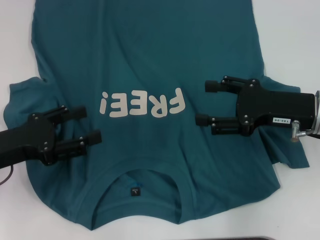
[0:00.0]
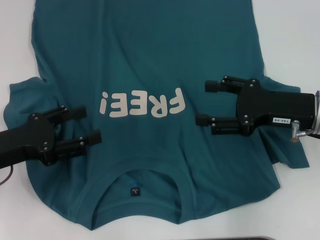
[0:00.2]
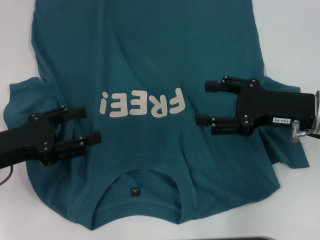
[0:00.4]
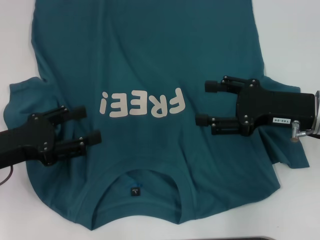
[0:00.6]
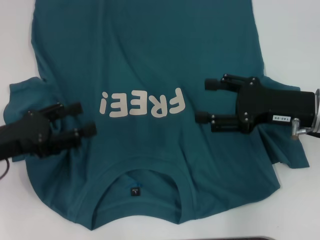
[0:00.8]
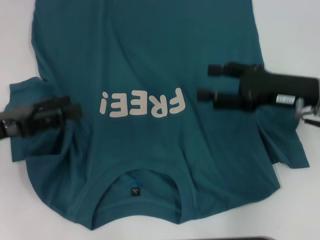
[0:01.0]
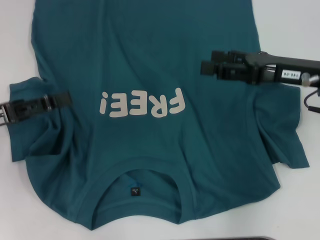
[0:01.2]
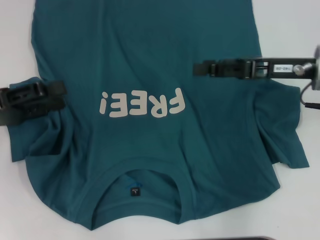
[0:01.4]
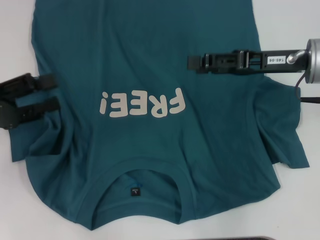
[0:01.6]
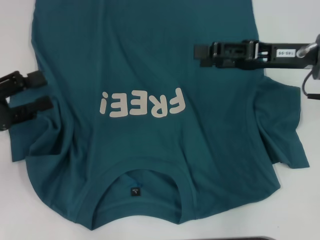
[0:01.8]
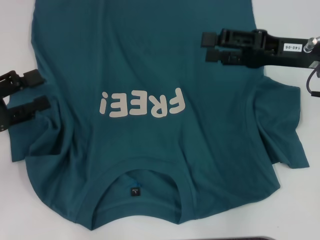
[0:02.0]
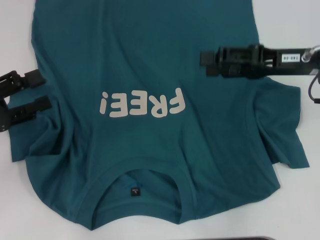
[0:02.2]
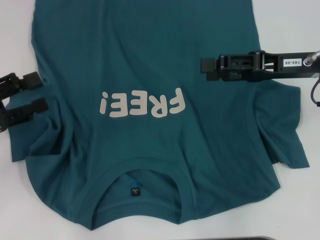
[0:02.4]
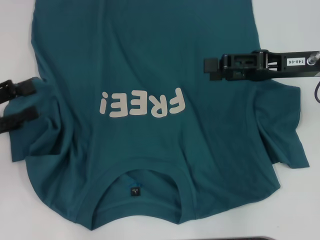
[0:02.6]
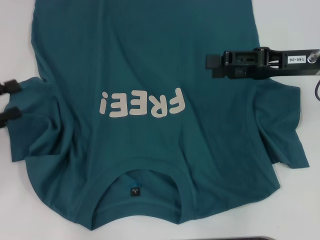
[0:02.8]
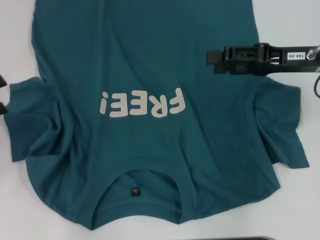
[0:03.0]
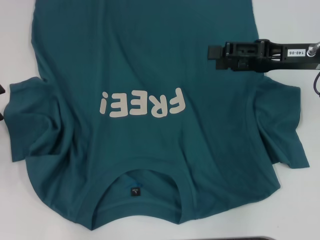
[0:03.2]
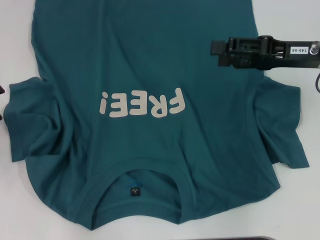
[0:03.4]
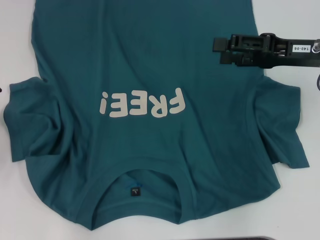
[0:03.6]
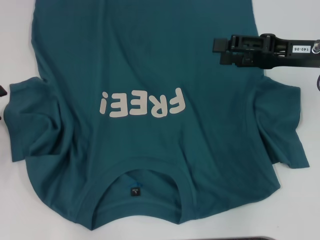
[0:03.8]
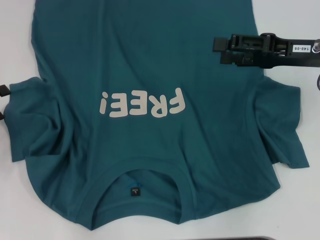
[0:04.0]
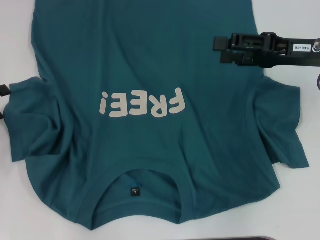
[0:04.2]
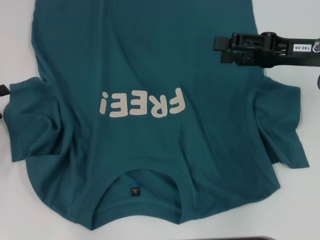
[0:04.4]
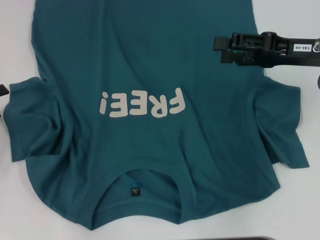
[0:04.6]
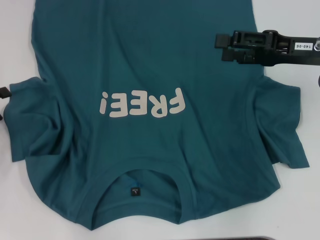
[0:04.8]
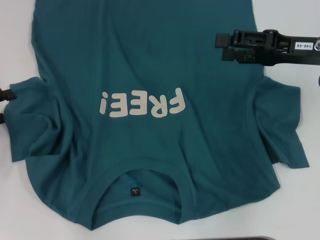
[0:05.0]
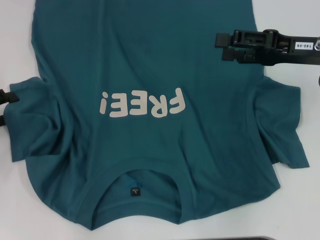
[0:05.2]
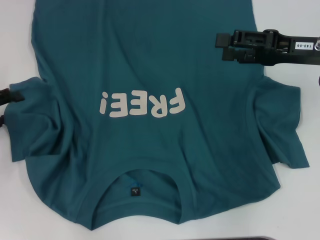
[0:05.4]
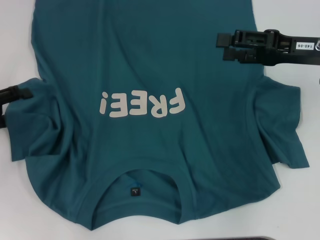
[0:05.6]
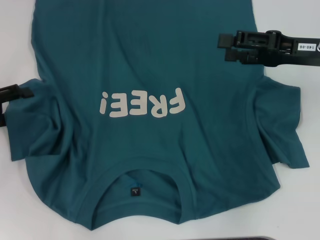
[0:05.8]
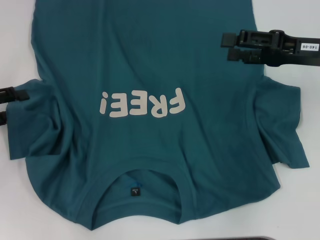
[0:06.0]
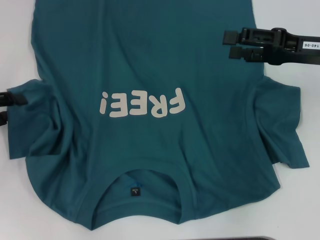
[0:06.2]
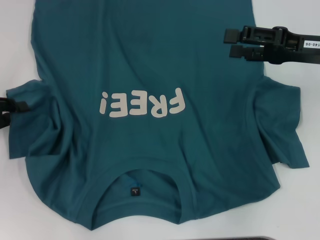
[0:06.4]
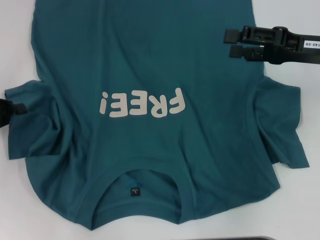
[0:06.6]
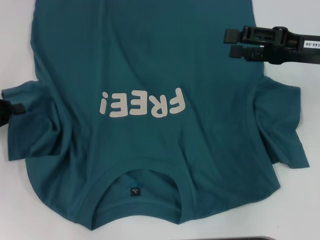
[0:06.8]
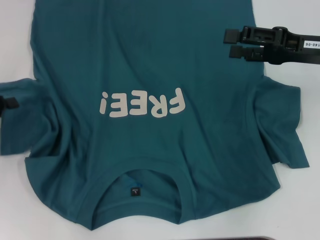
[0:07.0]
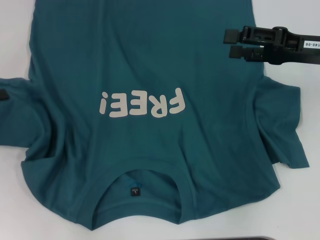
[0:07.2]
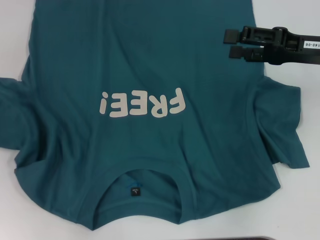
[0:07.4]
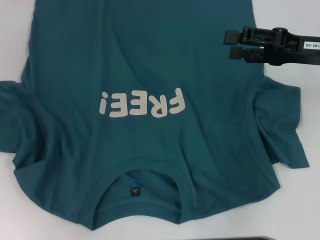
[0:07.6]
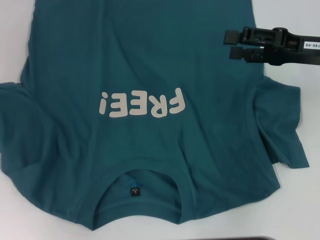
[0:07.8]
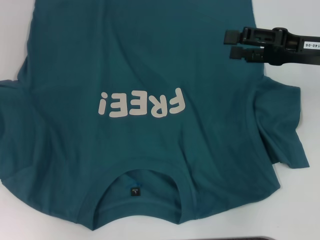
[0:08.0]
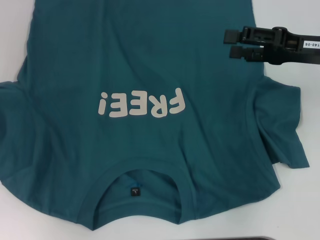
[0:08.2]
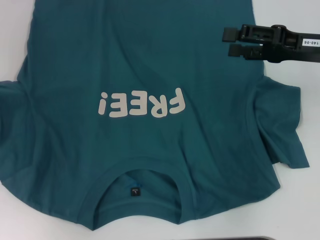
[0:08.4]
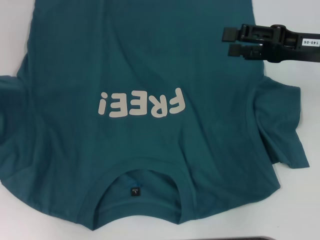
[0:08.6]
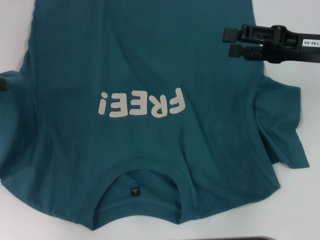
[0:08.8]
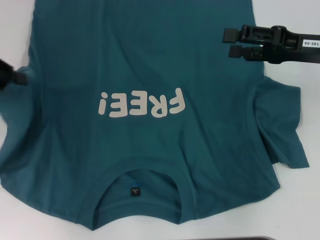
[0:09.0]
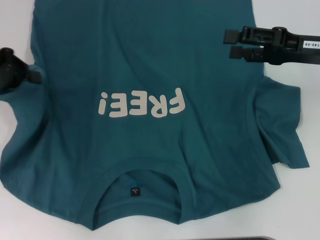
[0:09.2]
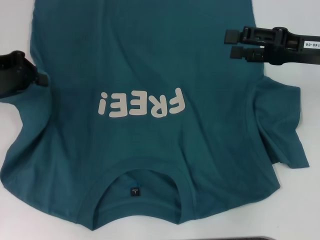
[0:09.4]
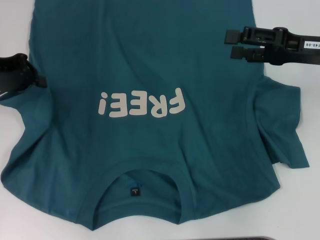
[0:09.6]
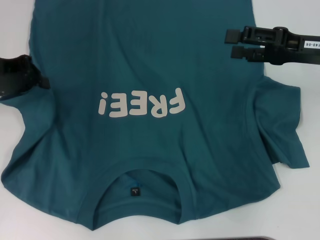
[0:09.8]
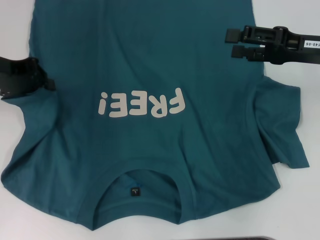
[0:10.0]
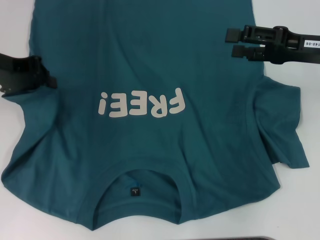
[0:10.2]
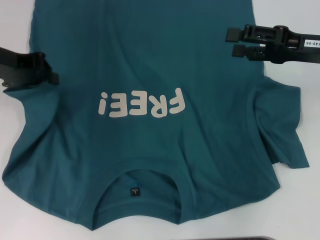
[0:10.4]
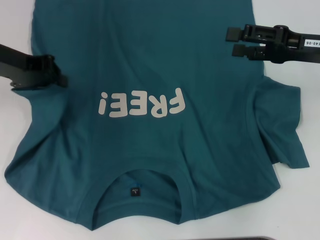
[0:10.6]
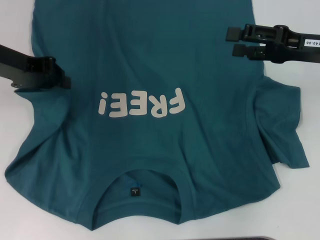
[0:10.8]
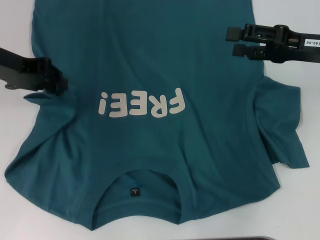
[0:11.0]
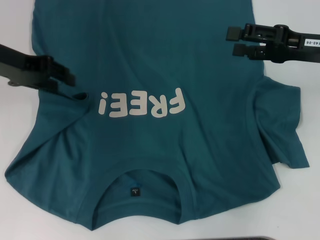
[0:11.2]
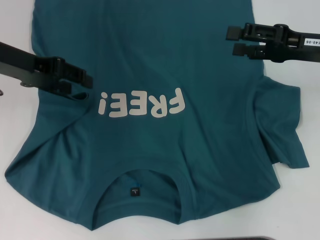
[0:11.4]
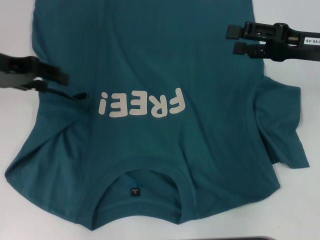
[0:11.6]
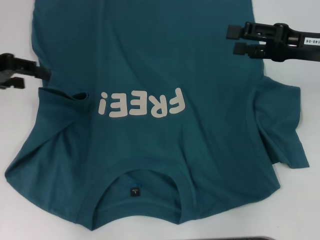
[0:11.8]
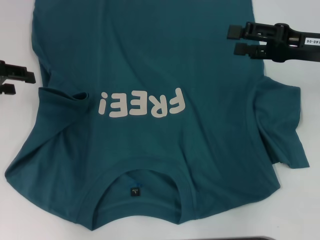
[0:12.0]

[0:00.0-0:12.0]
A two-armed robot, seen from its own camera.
0:00.0 to 0:01.6: The left gripper moves approximately 5 cm. Meanwhile the right gripper shifts about 5 cm forward.
0:01.6 to 0:03.0: The left gripper shifts about 5 cm to the left.
0:03.0 to 0:06.0: The grippers move only a little.
0:06.0 to 0:07.6: The left gripper heads upward, covering roughly 5 cm, and closes.
0:07.6 to 0:09.0: The left gripper goes about 5 cm to the right.
0:09.0 to 0:10.4: The left gripper heads to the right, covering some 5 cm.
0:10.4 to 0:12.0: The left gripper goes roughly 5 cm to the left, and opens.

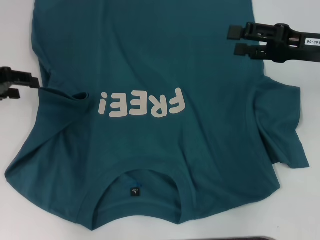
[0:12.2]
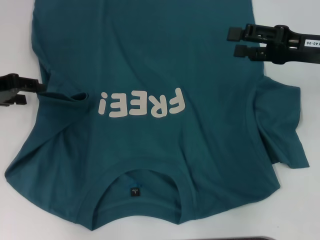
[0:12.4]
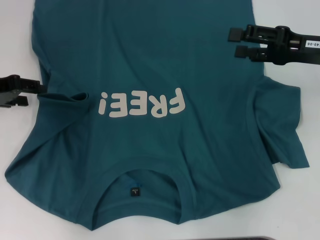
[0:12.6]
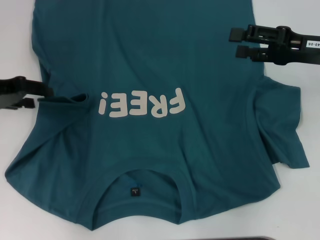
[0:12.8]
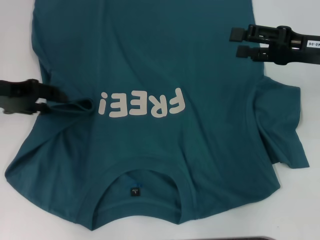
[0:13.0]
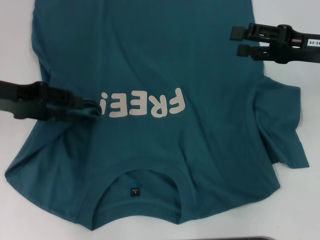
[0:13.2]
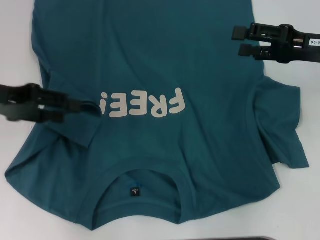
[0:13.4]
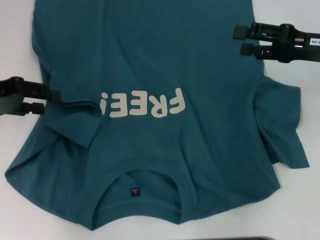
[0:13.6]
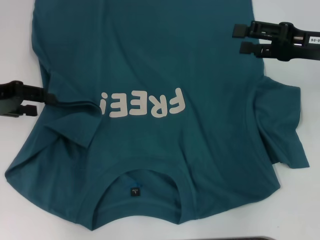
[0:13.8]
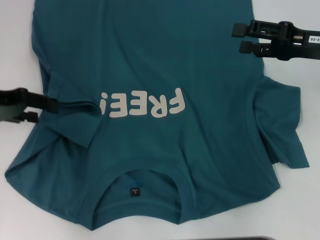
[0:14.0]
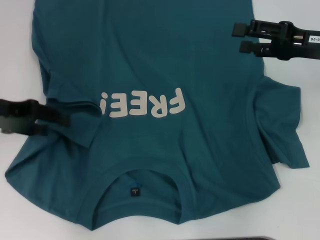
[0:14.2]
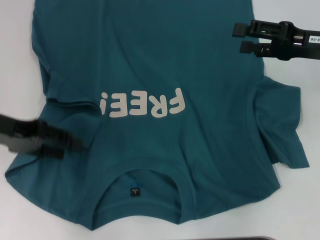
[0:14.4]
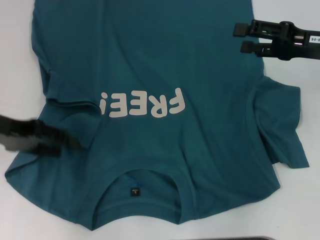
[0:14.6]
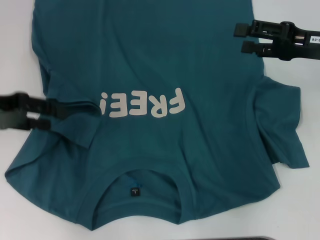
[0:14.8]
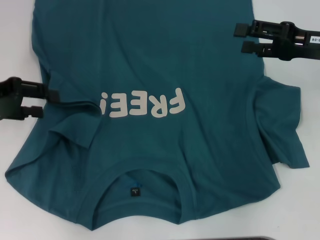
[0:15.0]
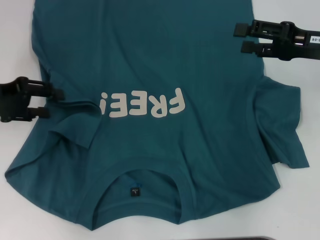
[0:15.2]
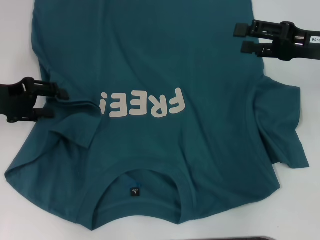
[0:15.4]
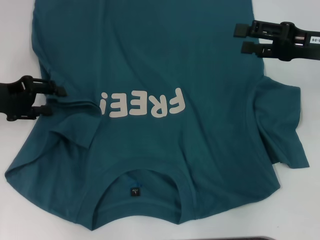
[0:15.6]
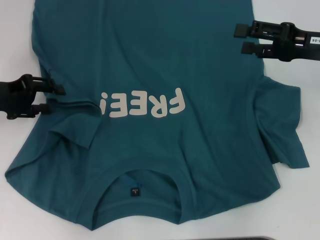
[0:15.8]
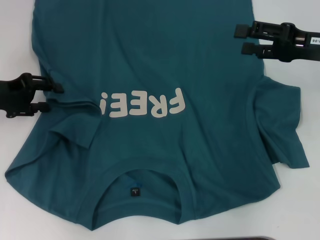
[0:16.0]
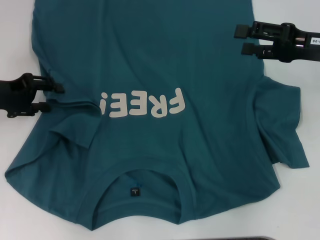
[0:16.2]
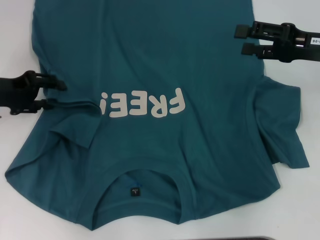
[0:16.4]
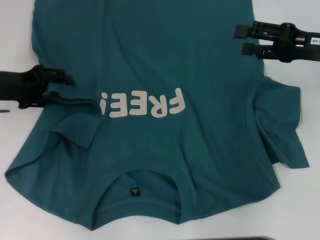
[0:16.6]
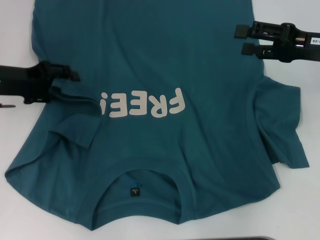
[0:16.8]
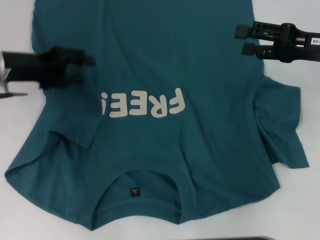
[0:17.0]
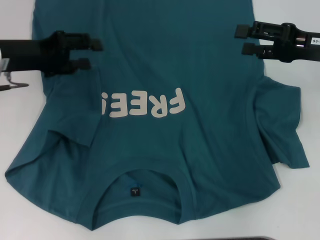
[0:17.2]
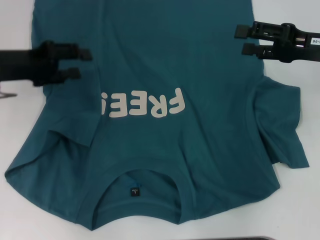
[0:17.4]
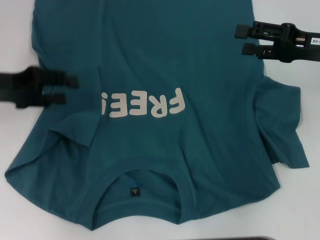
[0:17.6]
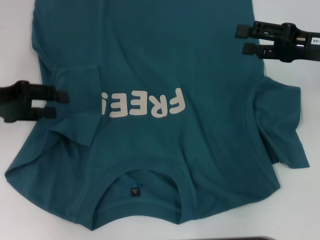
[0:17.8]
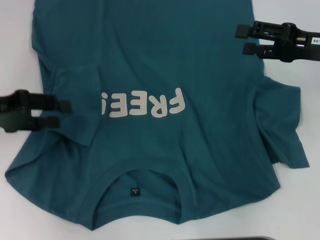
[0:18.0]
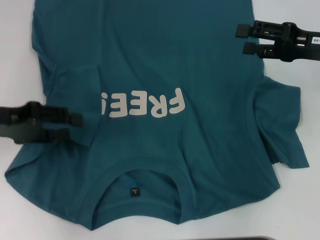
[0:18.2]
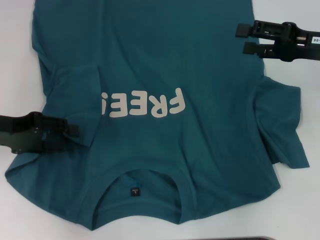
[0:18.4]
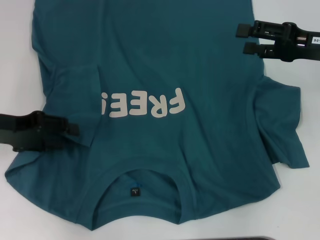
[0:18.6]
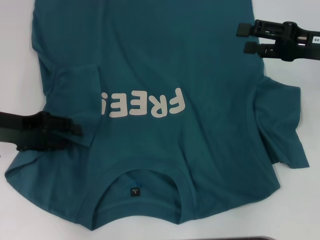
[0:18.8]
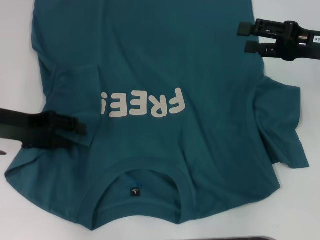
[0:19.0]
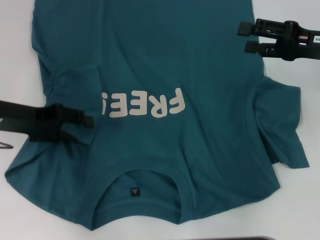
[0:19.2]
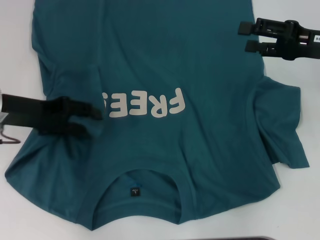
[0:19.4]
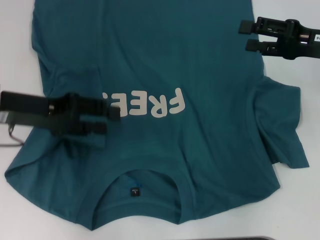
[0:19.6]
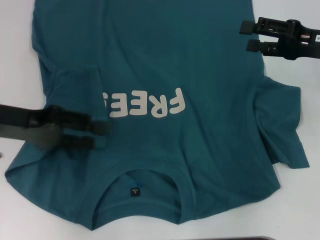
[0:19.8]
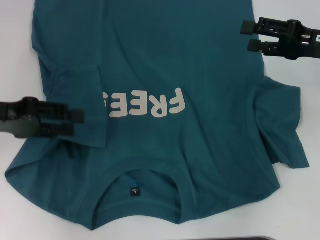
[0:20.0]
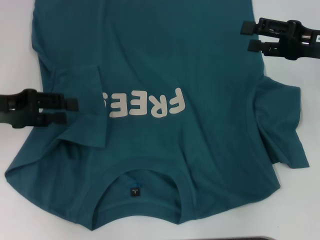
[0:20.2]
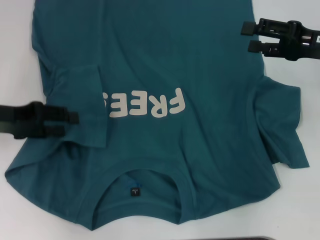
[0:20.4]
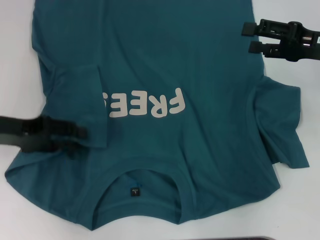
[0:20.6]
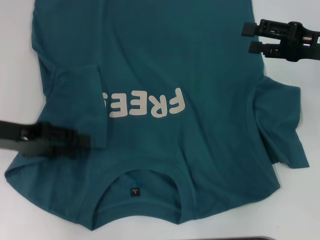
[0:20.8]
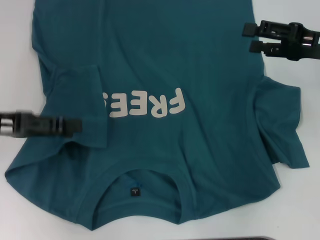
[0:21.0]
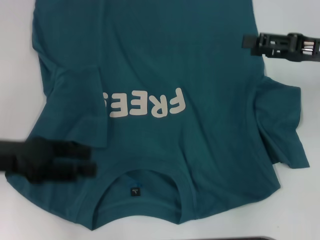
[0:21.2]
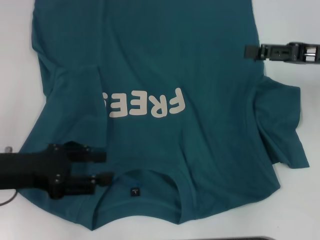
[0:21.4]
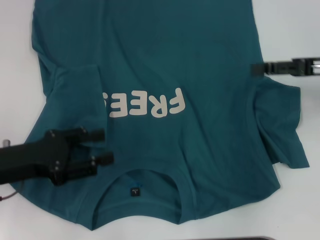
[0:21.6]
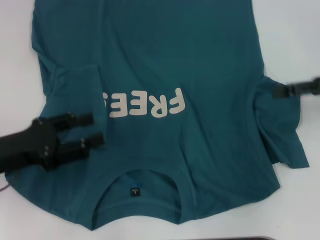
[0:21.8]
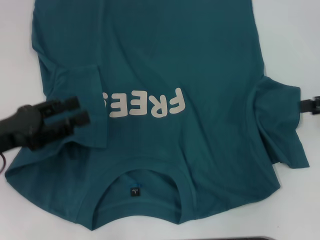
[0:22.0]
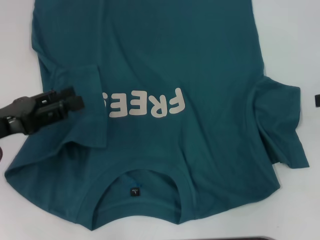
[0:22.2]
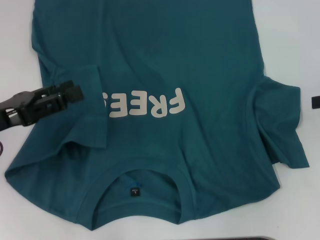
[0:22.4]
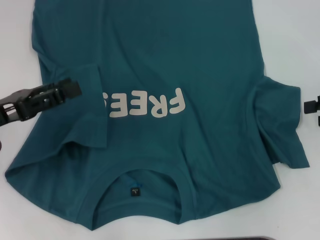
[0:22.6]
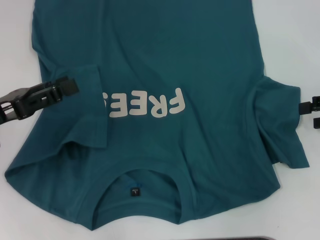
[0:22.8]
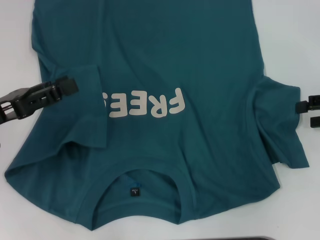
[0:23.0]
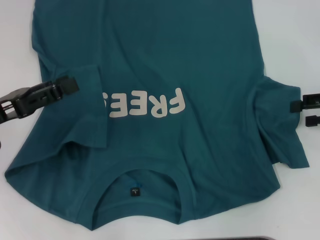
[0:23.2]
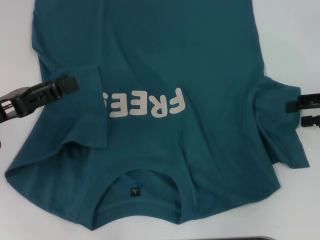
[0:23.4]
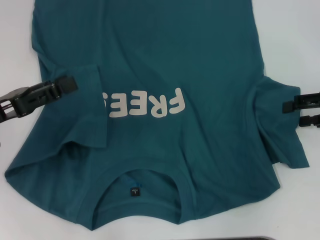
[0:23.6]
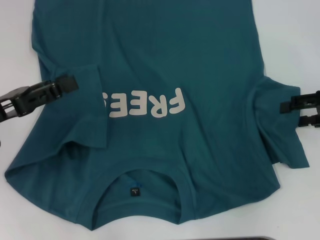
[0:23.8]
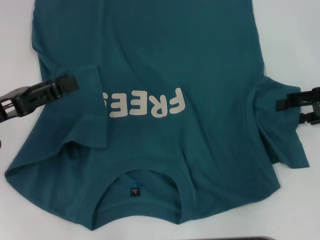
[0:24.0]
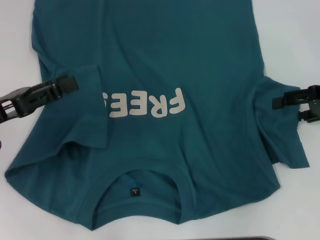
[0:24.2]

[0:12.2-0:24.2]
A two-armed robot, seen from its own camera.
Step, 0:12.2 to 0:21.4: Fold the bottom left sleeve with your left hand.
0:15.2 to 0:16.6: There are only small adjustments of the grippers.
0:16.6 to 0:18.2: The left gripper heads backward, covering roughly 5 cm.
0:18.2 to 0:19.8: The grippers stay close to where they were, moving slightly.
0:21.2 to 0:22.6: The right gripper heads to the right, covering roughly 10 cm.
0:22.6 to 0:24.2: The right gripper ends up about 5 cm from where it was.
